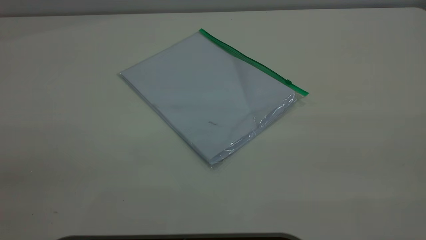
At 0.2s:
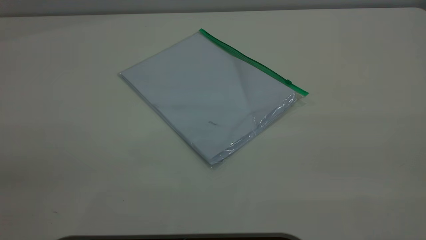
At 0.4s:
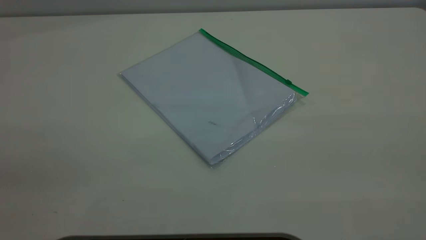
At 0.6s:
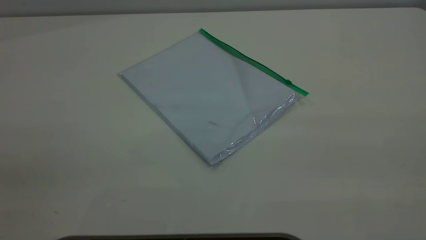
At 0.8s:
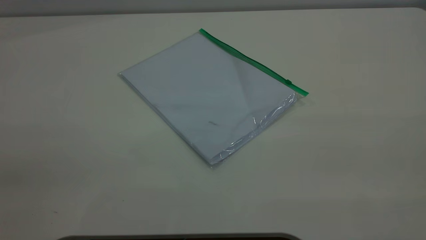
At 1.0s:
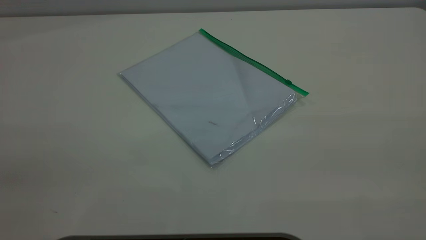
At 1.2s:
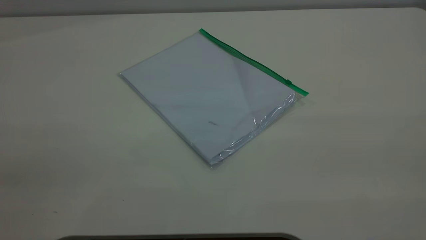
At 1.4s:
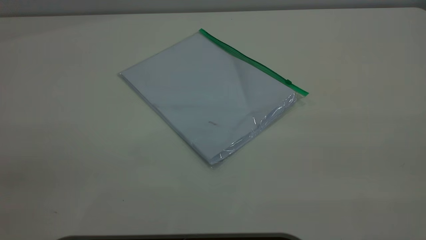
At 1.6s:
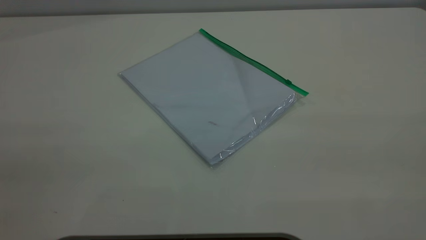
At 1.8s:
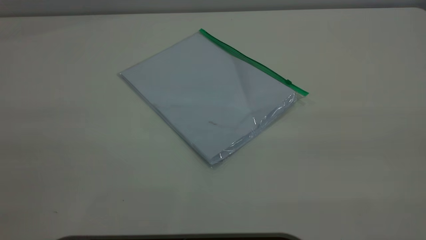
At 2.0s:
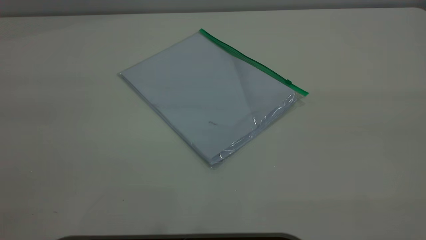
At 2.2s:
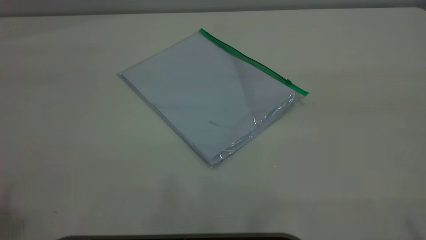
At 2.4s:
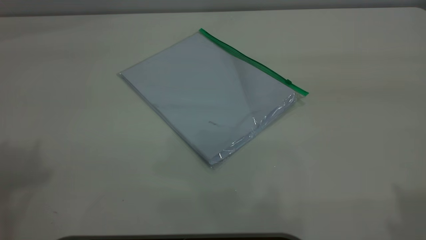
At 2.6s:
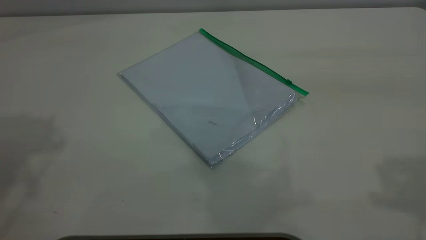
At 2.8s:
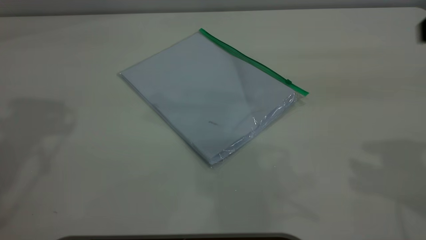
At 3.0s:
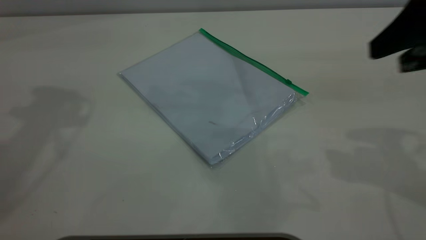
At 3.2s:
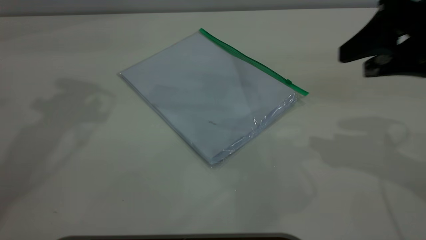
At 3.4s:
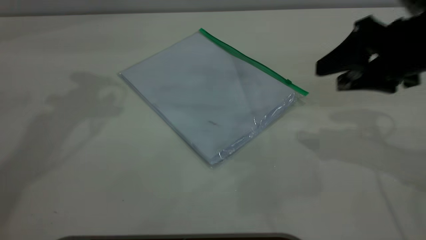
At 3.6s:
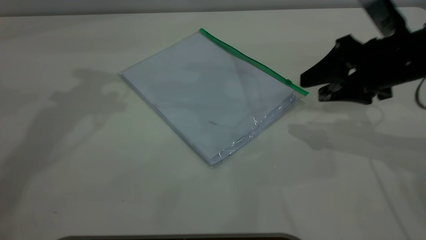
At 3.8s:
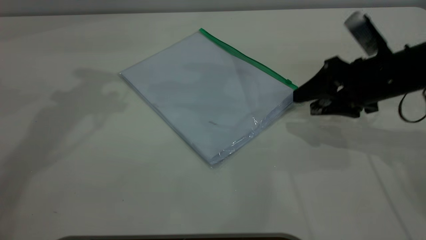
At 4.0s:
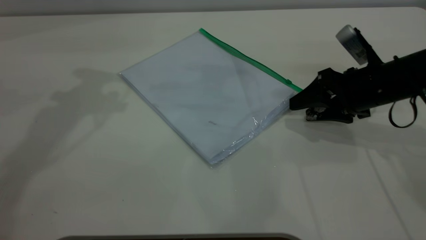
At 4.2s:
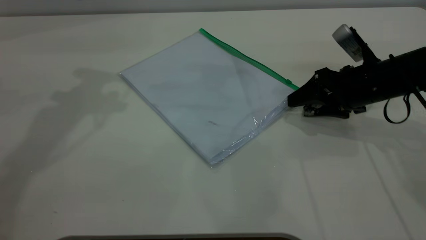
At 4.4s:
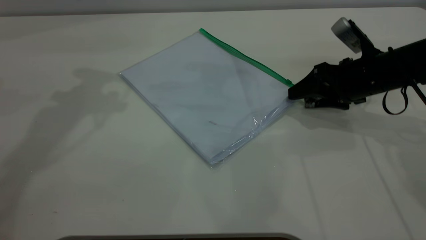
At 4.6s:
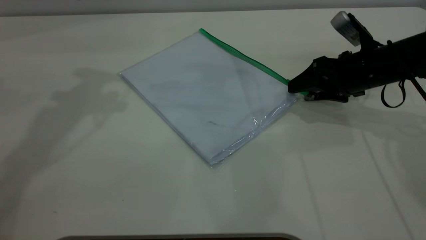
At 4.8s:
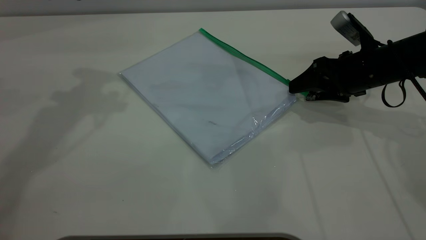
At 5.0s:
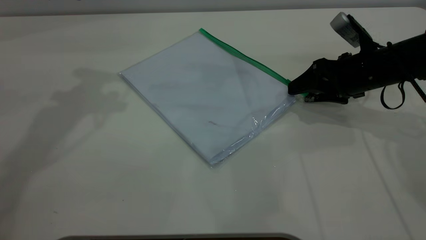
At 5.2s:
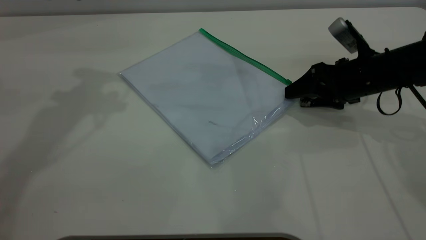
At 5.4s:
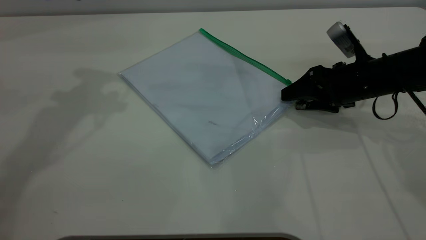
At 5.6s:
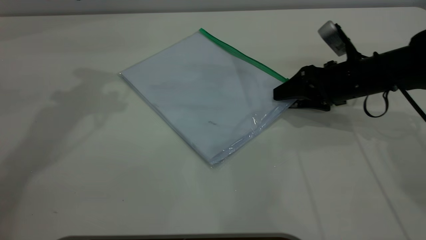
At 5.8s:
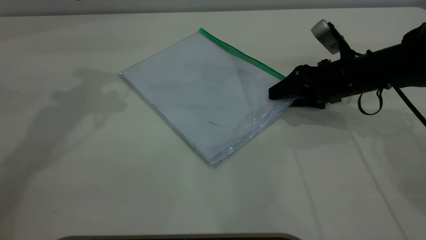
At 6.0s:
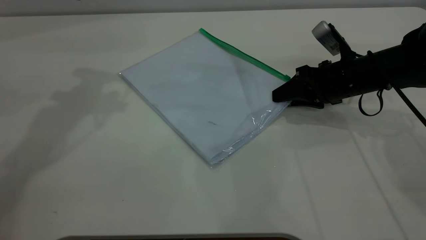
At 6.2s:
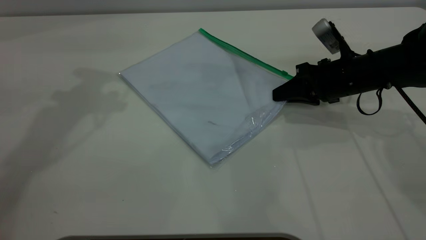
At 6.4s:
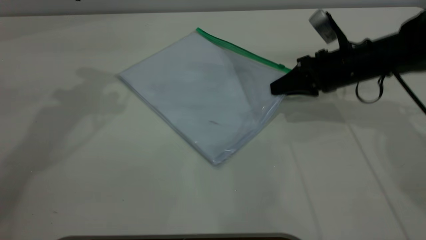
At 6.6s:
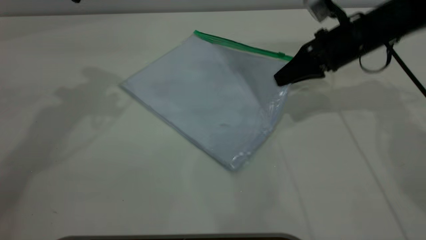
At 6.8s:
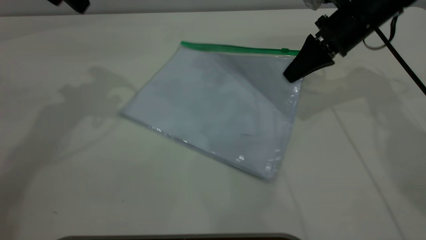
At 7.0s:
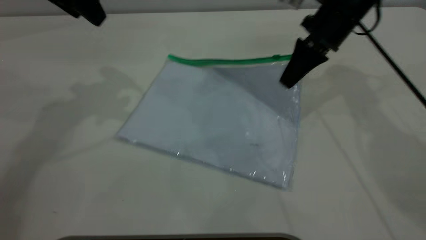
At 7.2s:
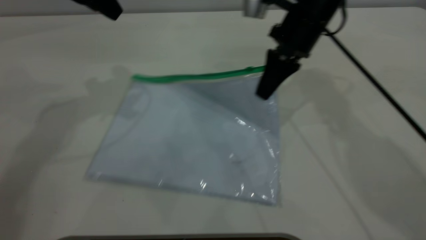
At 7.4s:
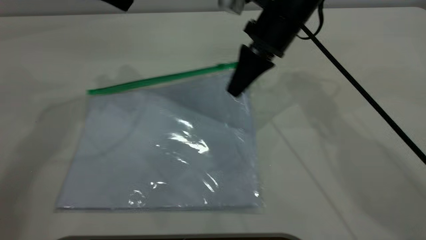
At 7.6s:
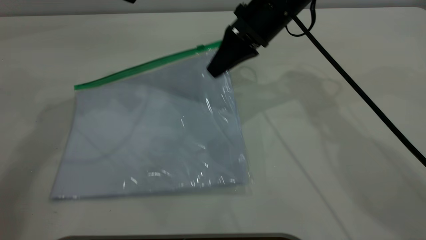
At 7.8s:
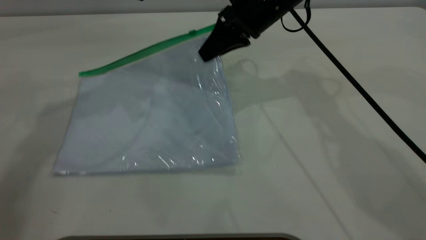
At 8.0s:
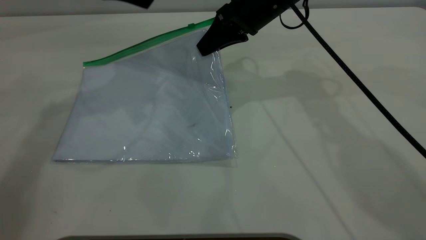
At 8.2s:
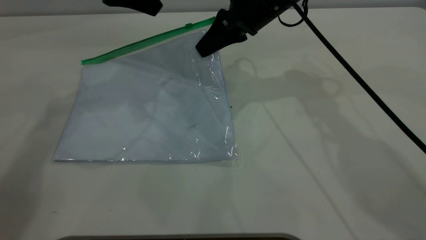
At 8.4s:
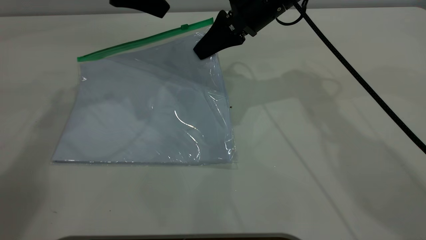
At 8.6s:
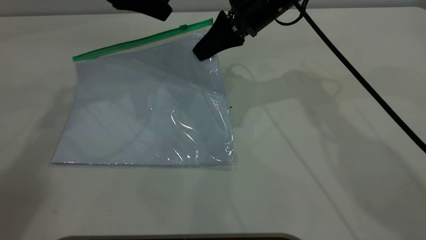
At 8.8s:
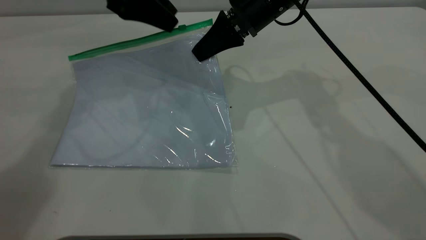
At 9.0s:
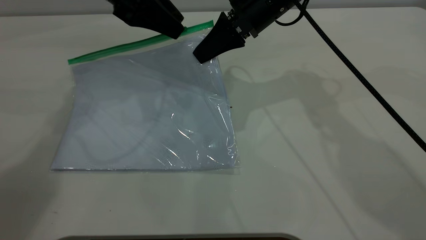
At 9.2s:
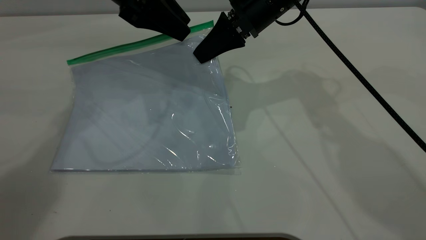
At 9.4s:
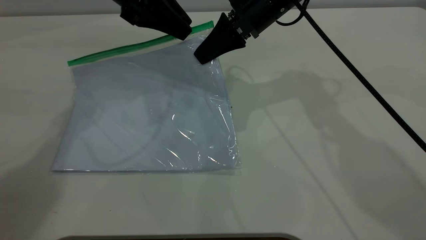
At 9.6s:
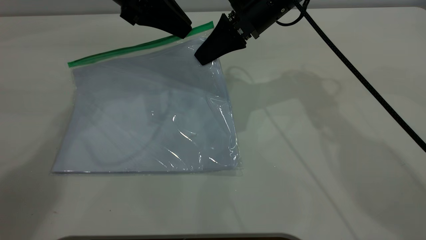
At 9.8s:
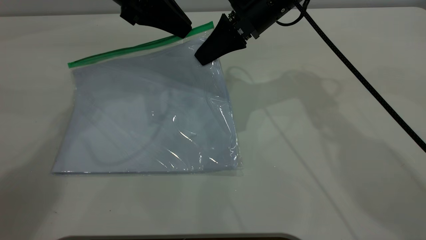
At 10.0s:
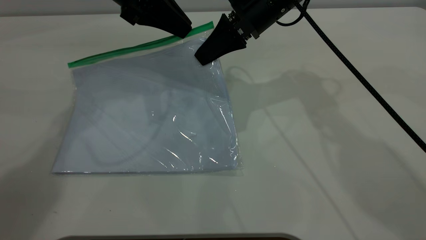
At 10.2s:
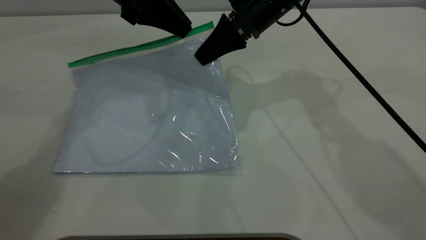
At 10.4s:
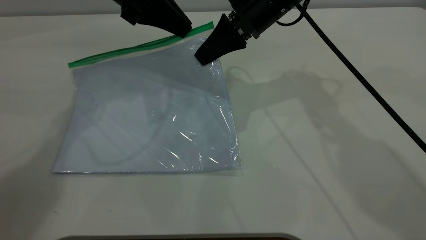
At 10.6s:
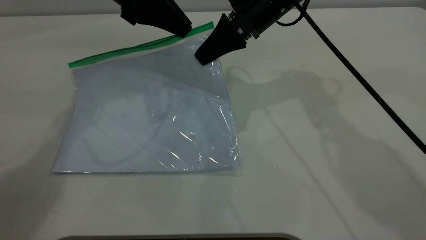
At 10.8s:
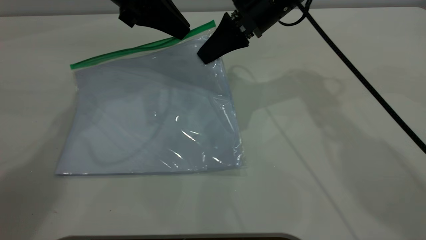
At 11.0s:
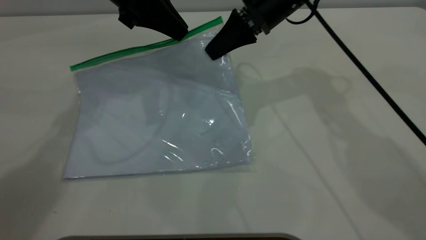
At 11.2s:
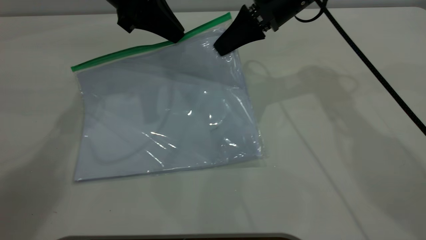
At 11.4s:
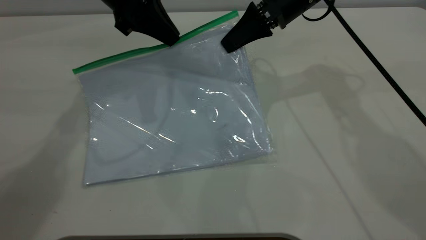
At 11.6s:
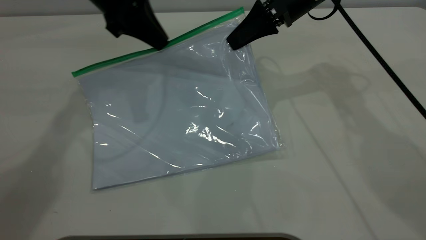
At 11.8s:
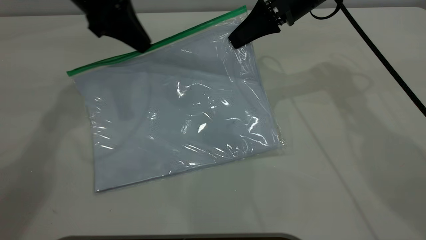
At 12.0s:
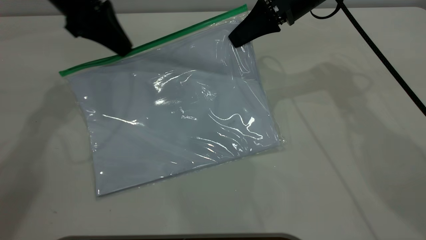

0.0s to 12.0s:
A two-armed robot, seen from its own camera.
Step, 0.0s to 6.4s: Pick up the transparent plastic bag with the right gripper.
0.0s to 1.6s: Neither gripper changes place.
1.6s to 3.0s: The right gripper heads forward and downward, covering roughly 30 cm.
3.0s to 4.4s: The right gripper travels downward and forward by about 20 cm.
4.4s to 6.0s: The right gripper closes its fingers.
6.0s to 7.6s: The right gripper heads to the left and upward, covering about 20 cm, and closes its fingers.
7.6s to 9.0s: The left gripper goes about 5 cm downward.
9.0s to 10.4s: The left gripper closes.
10.4s to 12.0s: The right gripper heads to the right, covering approximately 5 cm, while the left gripper heads to the left, covering approximately 10 cm.

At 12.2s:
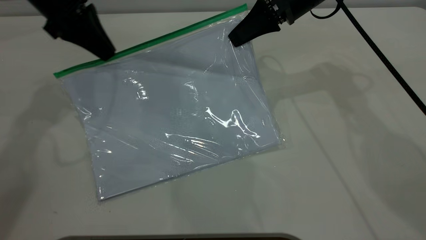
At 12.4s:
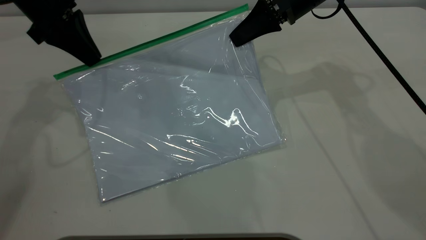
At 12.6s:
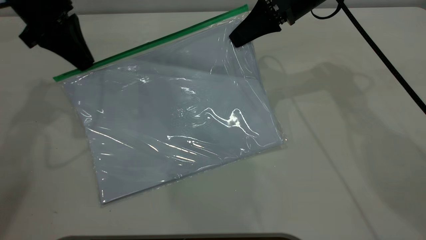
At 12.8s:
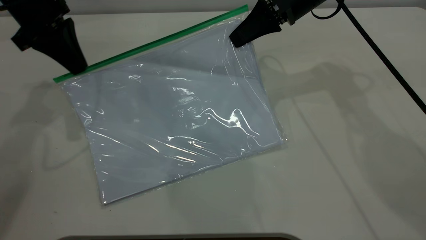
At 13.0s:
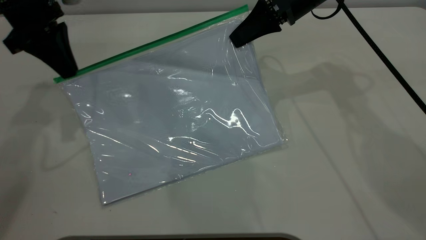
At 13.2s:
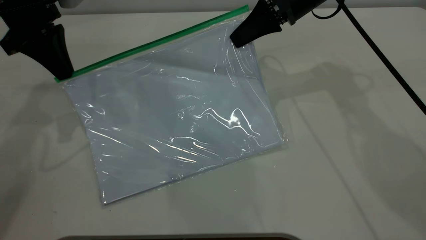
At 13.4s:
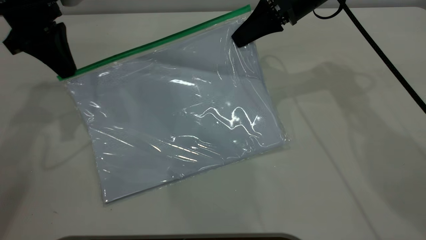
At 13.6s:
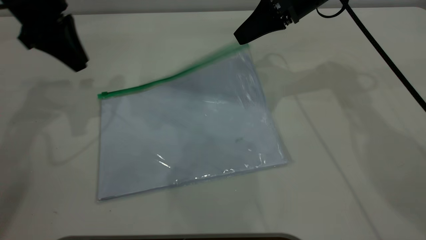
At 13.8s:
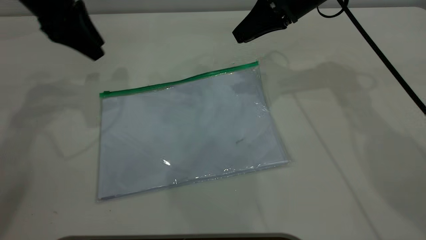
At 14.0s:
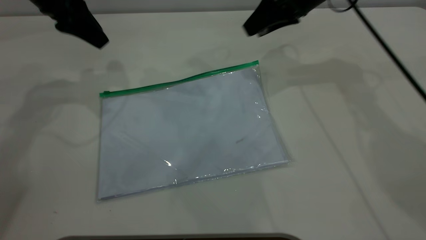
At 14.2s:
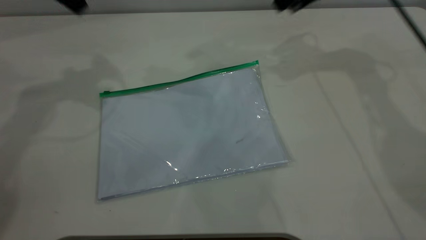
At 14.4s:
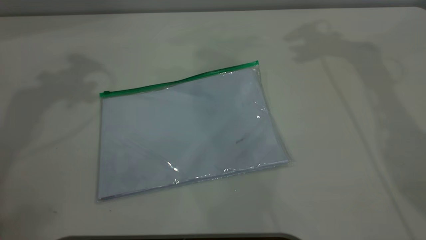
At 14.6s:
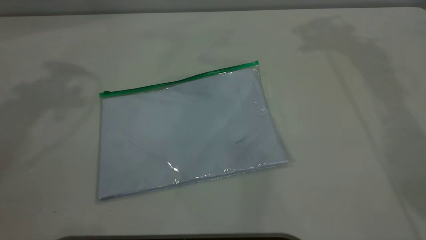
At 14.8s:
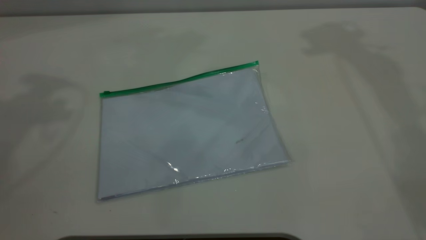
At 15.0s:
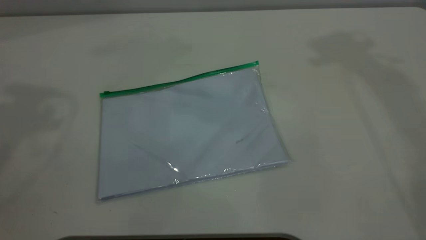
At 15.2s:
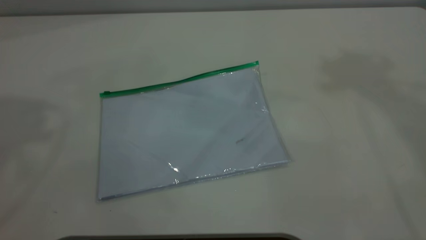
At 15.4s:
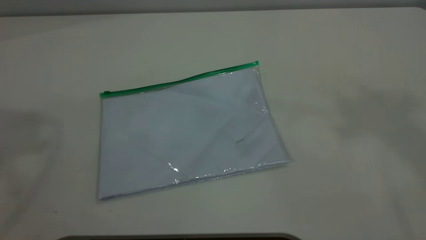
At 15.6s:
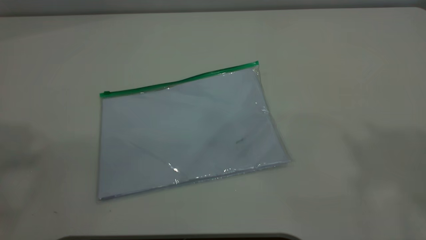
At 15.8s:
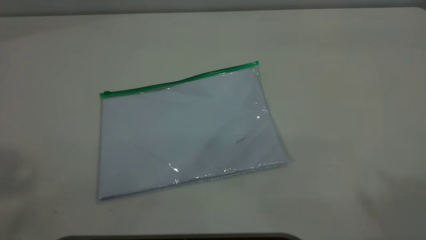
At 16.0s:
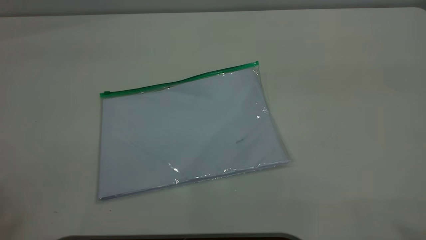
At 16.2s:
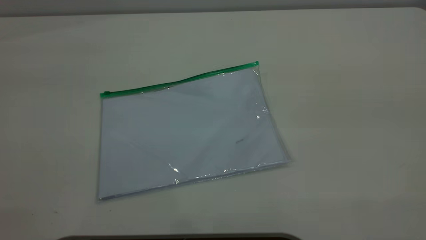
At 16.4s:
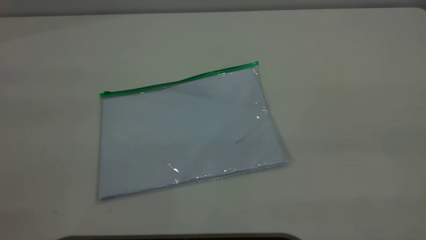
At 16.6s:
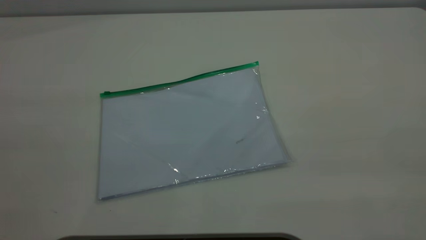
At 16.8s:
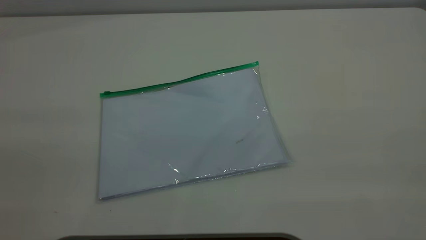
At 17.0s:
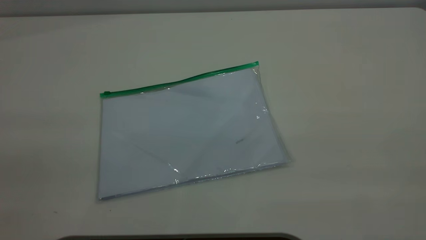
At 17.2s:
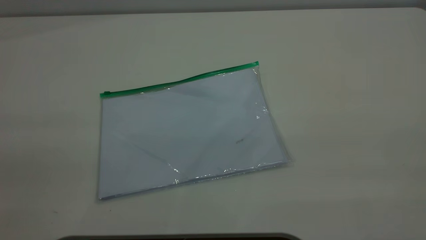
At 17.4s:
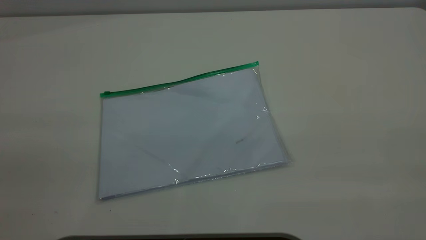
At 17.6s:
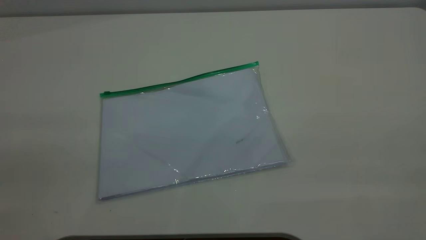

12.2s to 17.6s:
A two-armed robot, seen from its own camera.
12.2s to 13.6s: The right gripper opens. The left gripper opens.
13.6s to 15.0s: Both grippers travel together upward, about 35 cm. The left gripper opens up.
